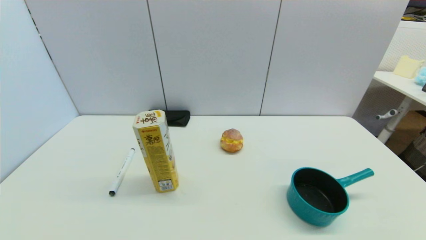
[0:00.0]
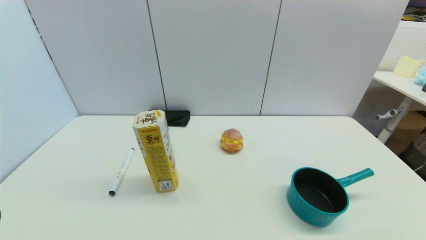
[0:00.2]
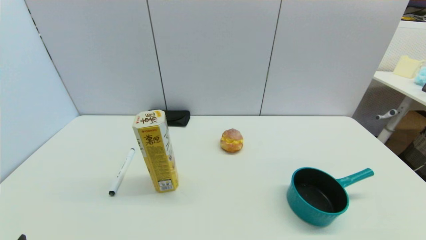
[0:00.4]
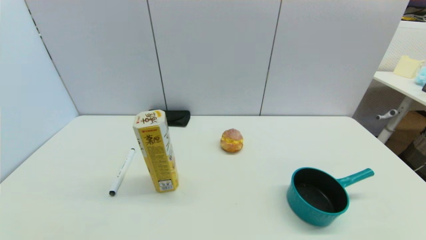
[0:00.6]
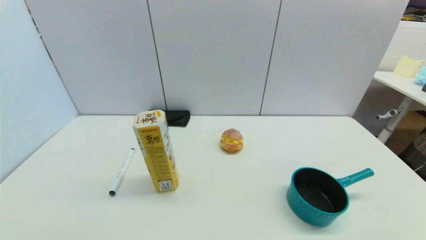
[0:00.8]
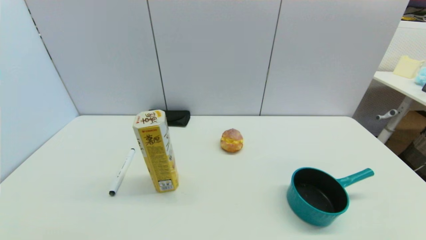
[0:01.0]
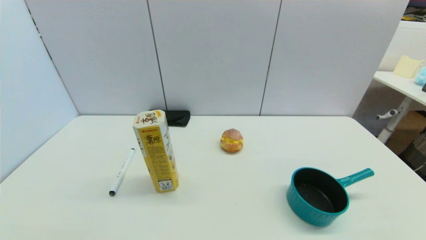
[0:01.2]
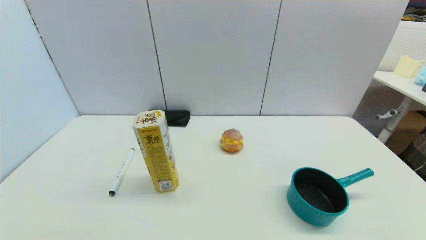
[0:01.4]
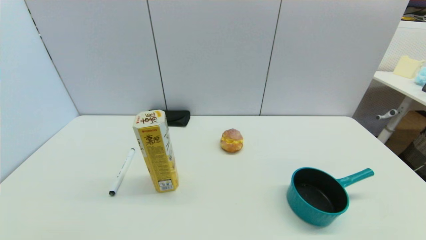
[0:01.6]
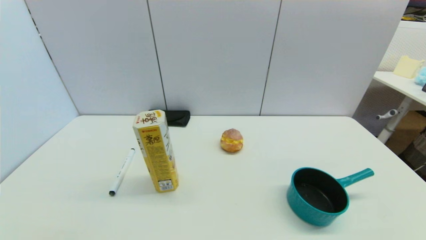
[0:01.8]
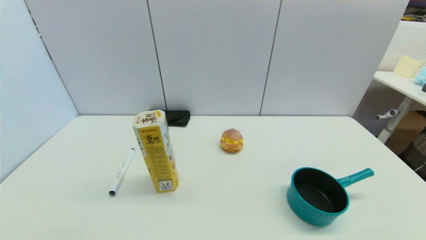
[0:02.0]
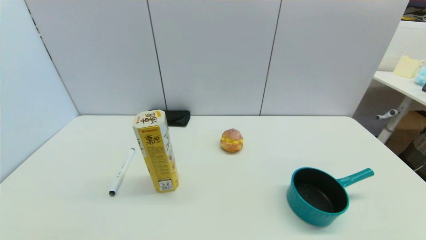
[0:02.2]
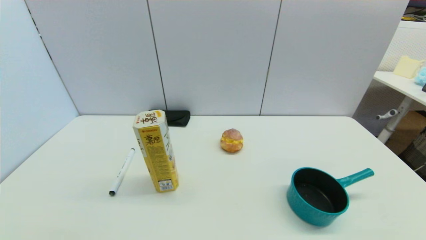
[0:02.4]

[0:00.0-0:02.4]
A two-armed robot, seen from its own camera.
Task of the whole recording: put the black marker in the designated position.
0:01.2 to 0:02.4: Neither gripper changes place.
